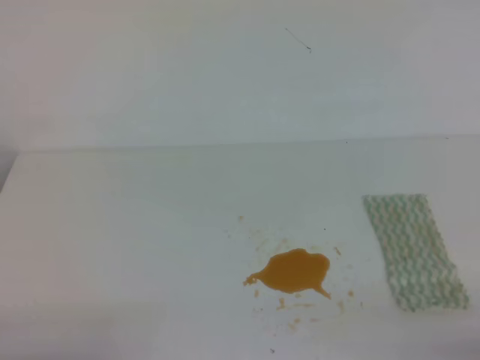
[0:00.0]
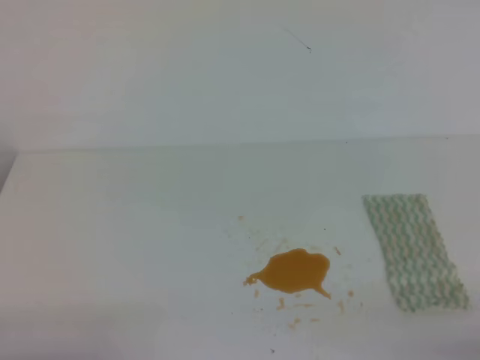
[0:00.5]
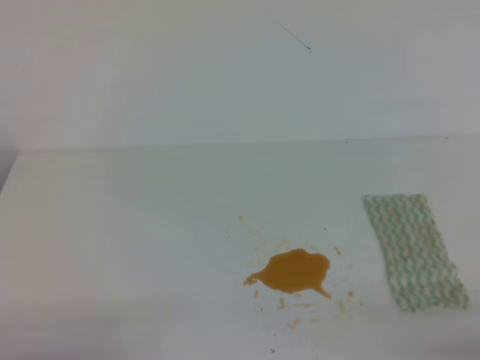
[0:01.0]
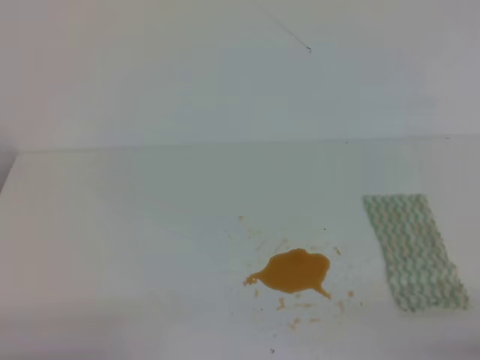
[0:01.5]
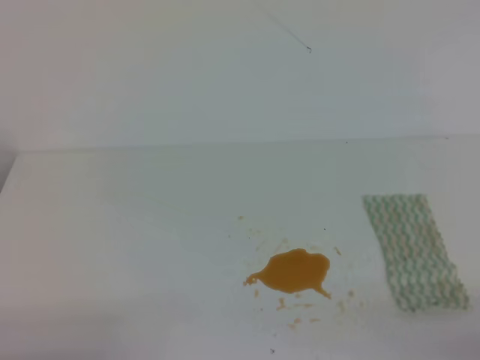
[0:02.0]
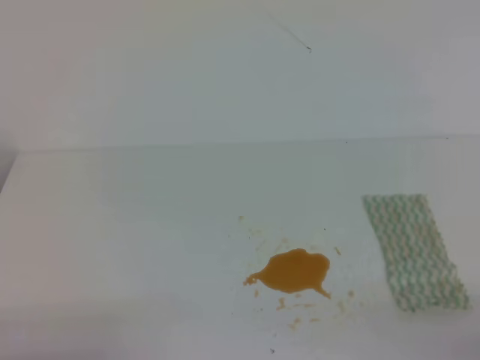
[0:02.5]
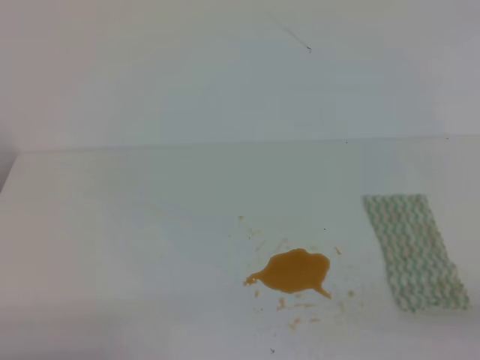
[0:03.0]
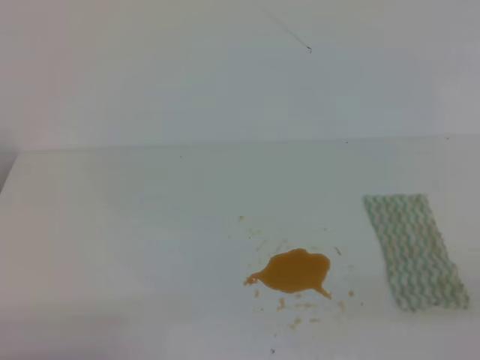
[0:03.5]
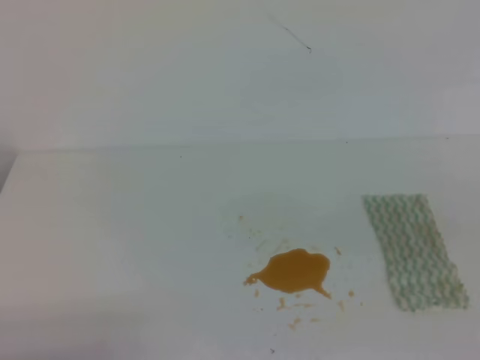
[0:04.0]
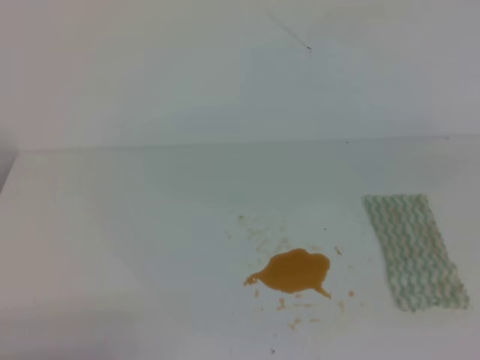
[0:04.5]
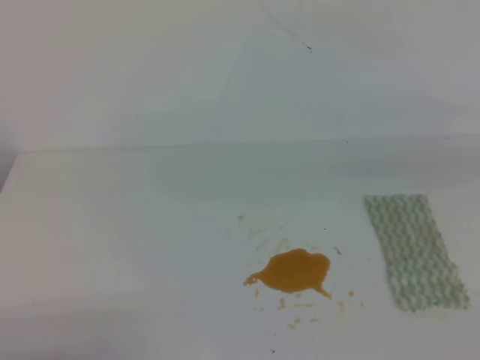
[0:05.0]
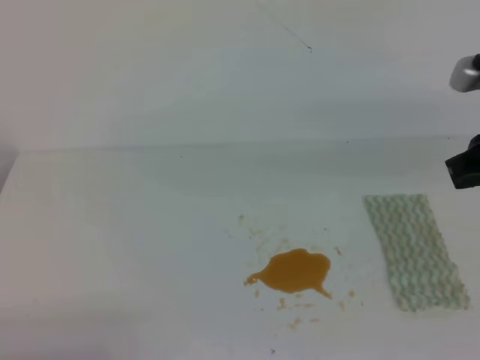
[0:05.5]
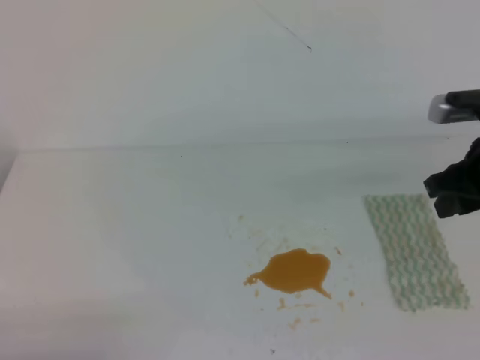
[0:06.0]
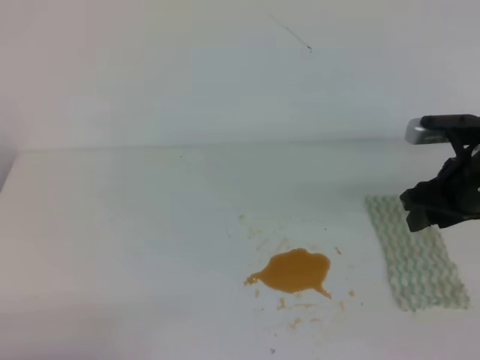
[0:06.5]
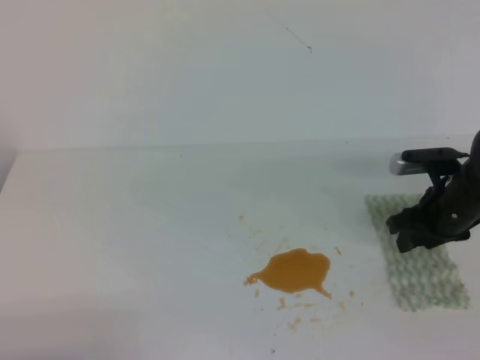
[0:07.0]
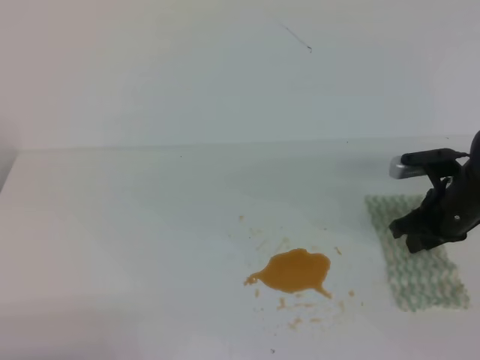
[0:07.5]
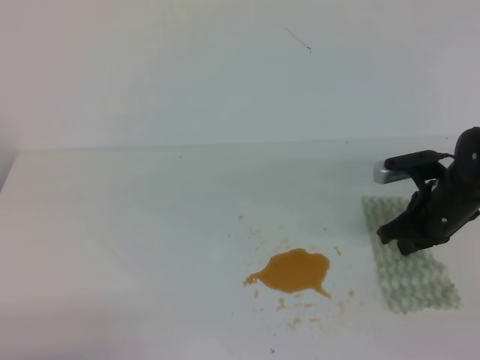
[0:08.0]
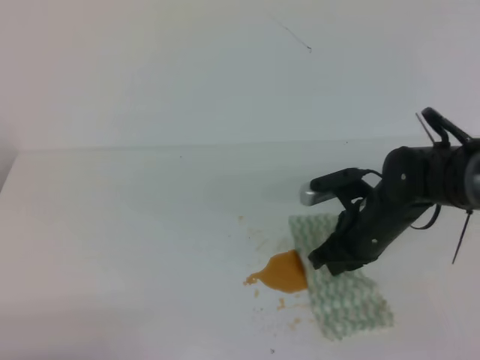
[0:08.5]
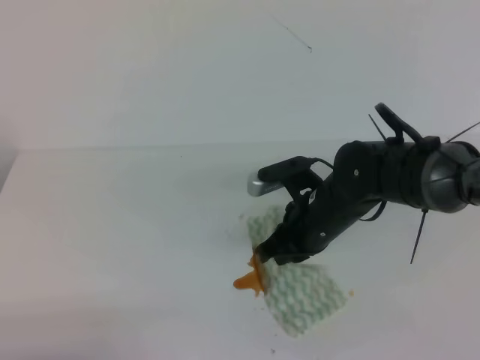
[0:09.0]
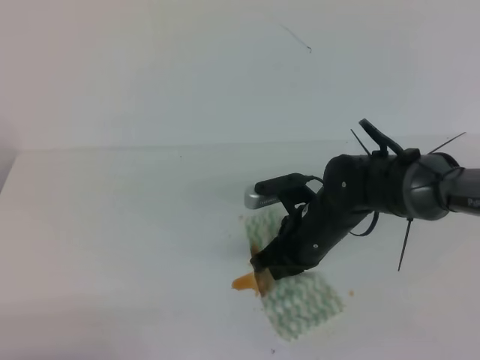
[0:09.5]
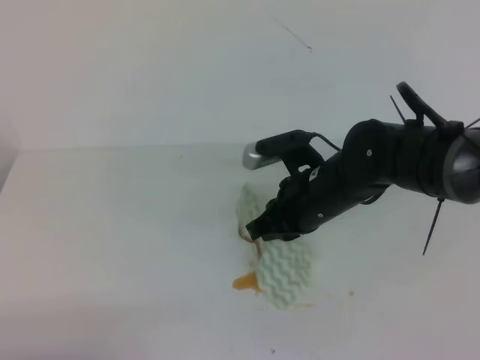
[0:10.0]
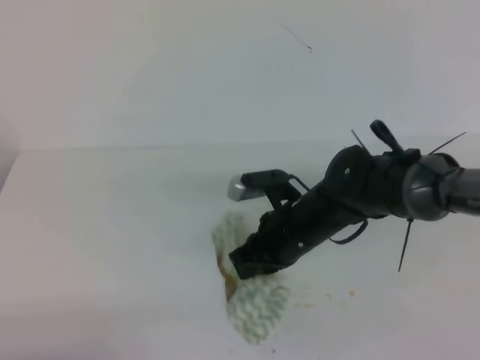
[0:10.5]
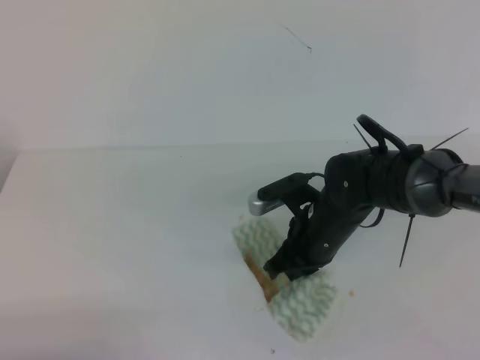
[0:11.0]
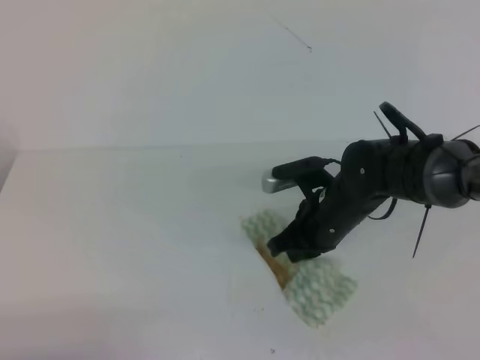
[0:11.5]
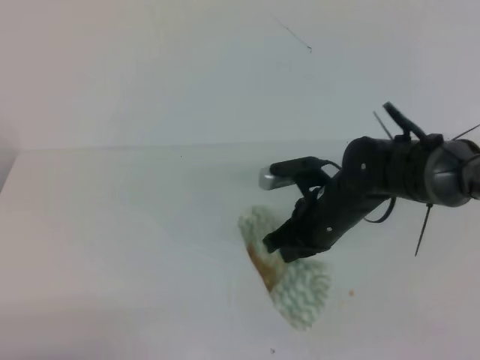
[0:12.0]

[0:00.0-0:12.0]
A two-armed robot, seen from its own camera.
0:04.0 to 0:06.0: The right gripper travels forward by some 25 cm, and opens its fingers.
0:06.0 to 0:08.0: The right gripper shifts roughly 15 cm downward, and closes.
0:08.0 to 0:10.0: The right gripper heads to the left and upward, covering roughly 15 cm.
0:10.0 to 0:12.0: The grippers make only small movements.

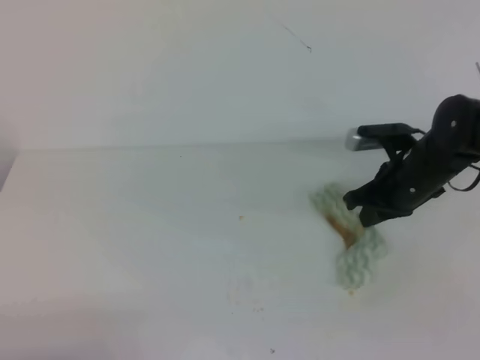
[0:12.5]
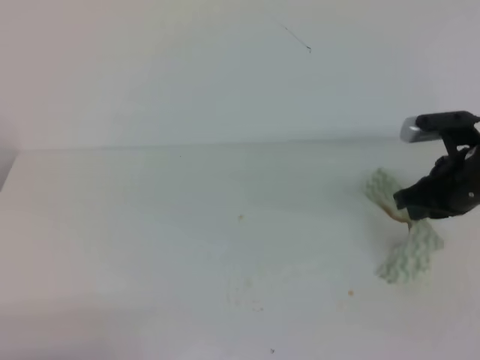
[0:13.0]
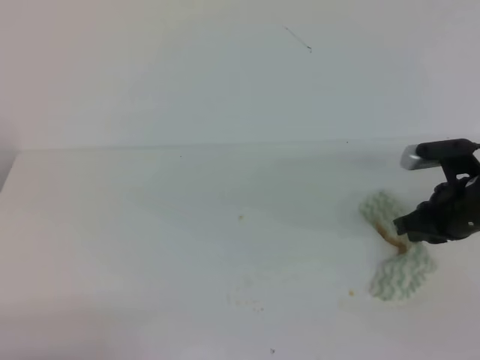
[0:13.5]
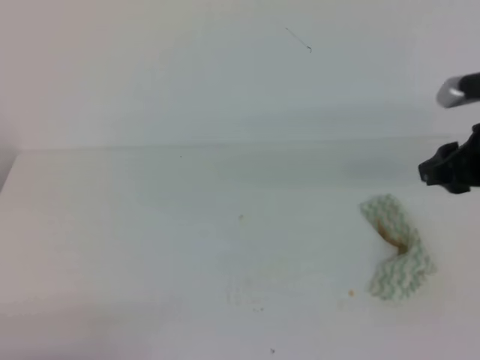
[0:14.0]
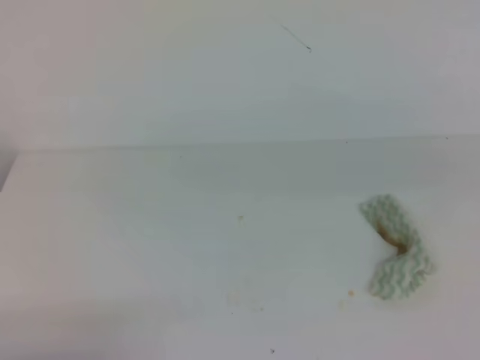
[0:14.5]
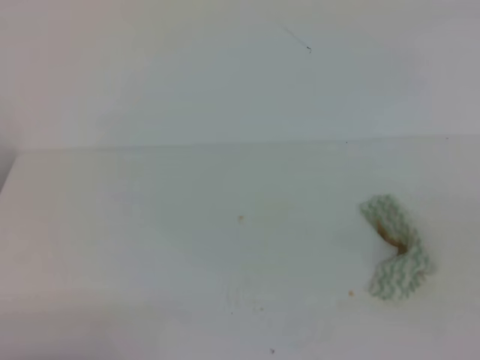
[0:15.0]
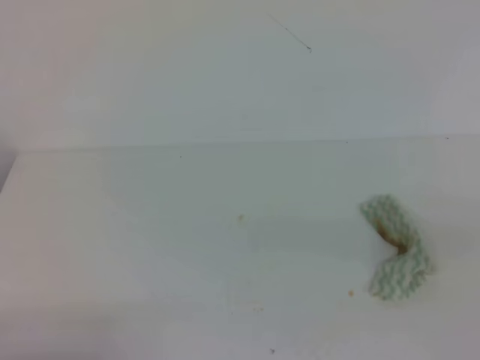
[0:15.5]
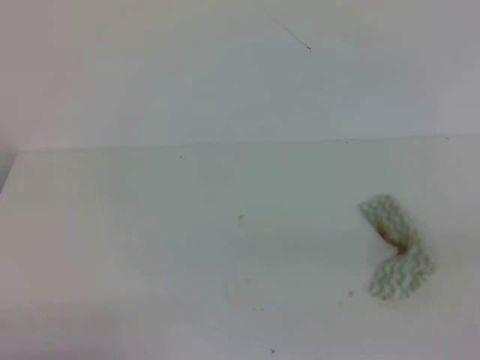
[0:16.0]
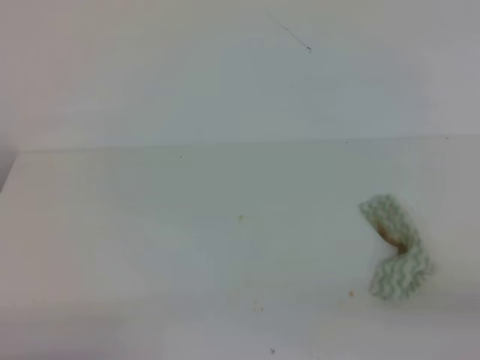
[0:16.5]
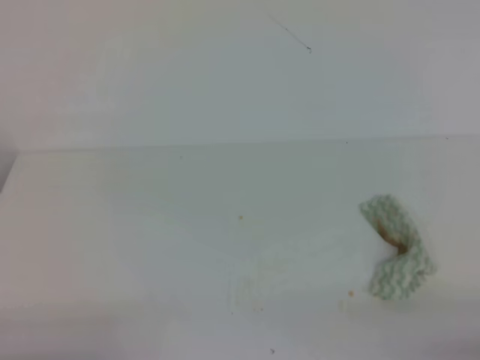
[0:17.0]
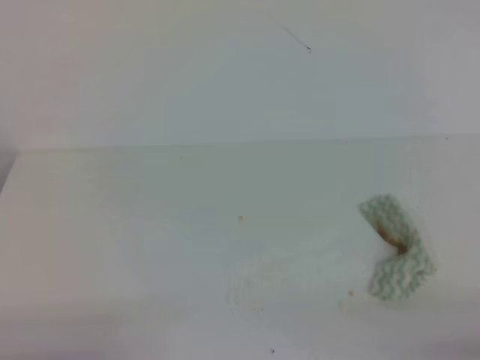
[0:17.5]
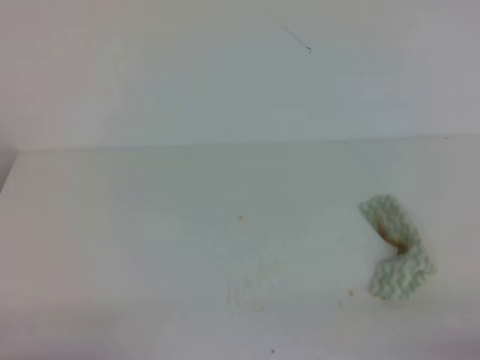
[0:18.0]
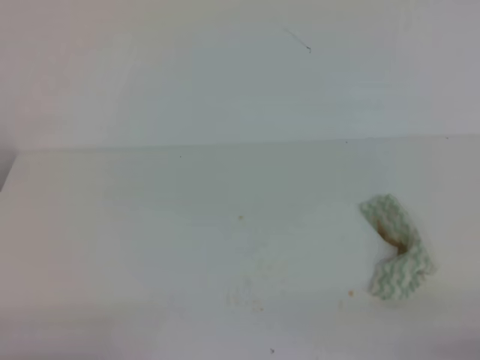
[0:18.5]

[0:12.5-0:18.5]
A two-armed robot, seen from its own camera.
0:12.5 to 0:14.5: The right gripper heads backward and upward, covering about 30 cm, and opens, then closes again.
0:14.5 to 0:16.5: The right gripper is displaced downward and backward by some 20 cm.
